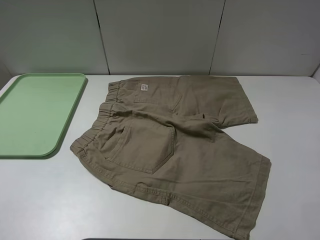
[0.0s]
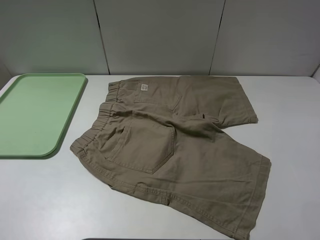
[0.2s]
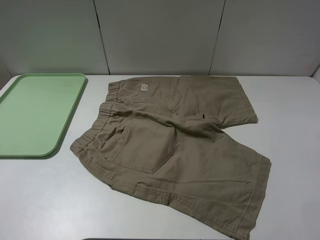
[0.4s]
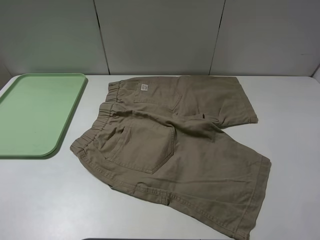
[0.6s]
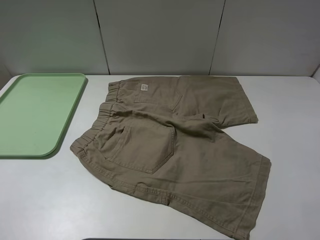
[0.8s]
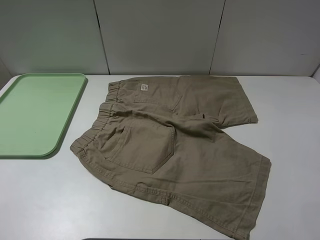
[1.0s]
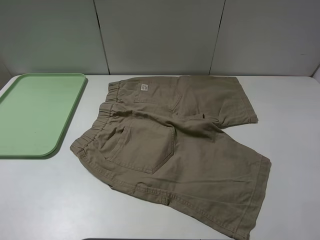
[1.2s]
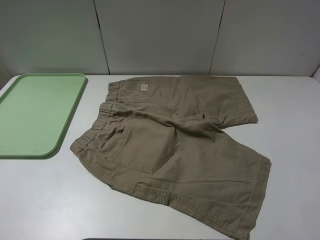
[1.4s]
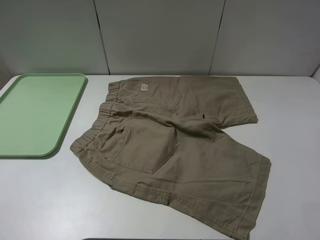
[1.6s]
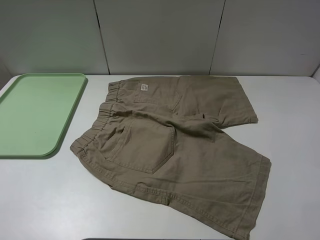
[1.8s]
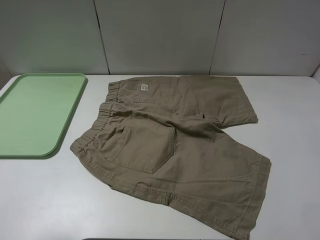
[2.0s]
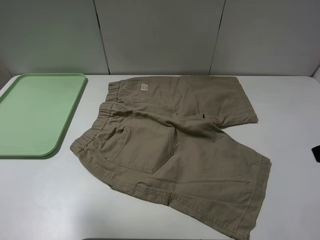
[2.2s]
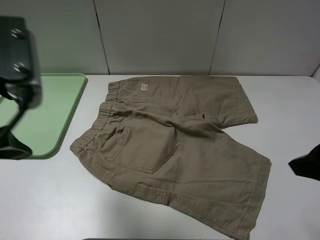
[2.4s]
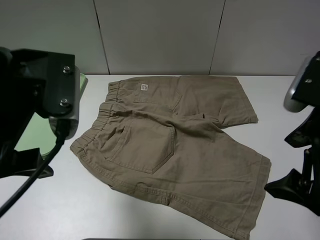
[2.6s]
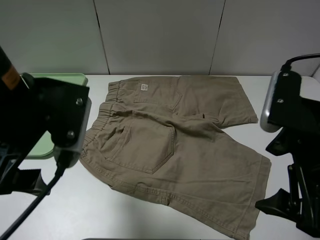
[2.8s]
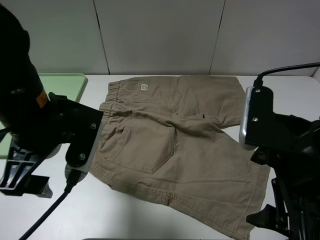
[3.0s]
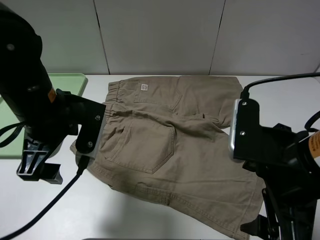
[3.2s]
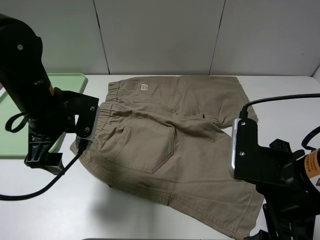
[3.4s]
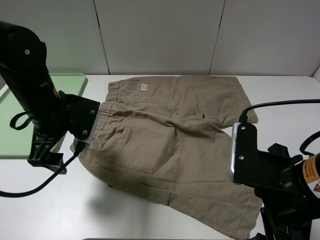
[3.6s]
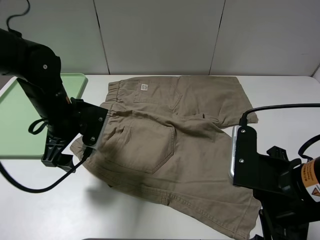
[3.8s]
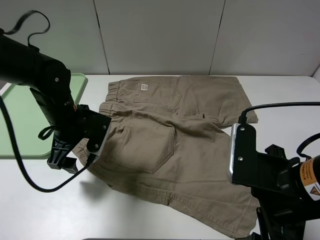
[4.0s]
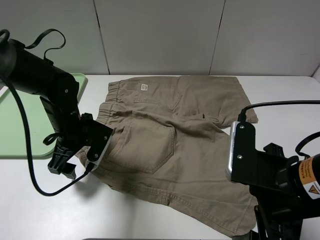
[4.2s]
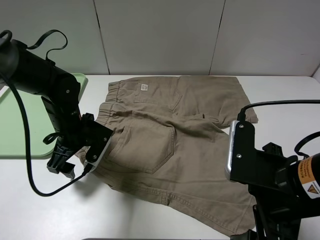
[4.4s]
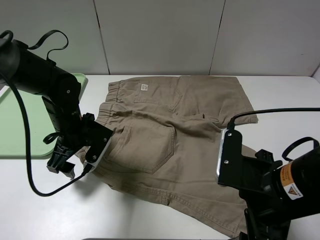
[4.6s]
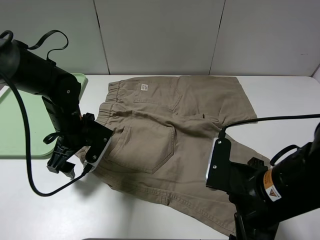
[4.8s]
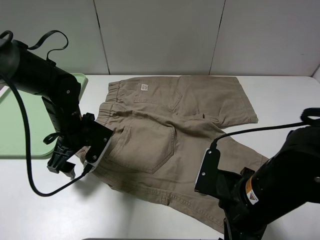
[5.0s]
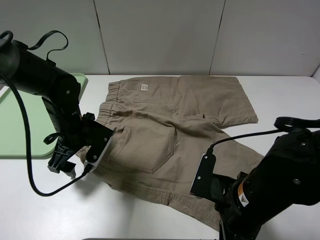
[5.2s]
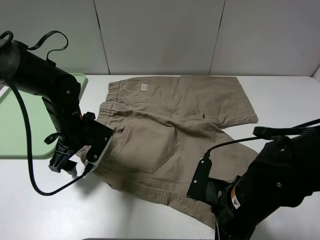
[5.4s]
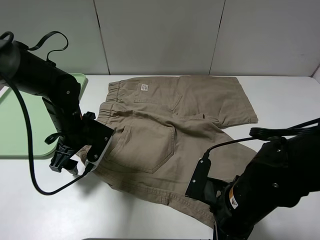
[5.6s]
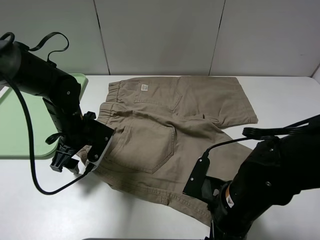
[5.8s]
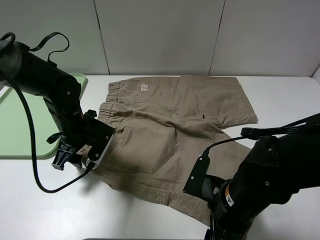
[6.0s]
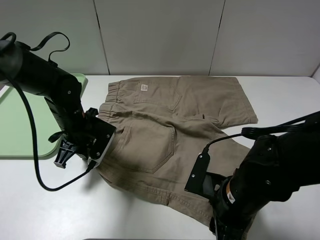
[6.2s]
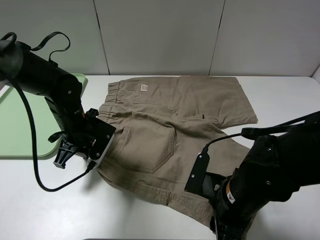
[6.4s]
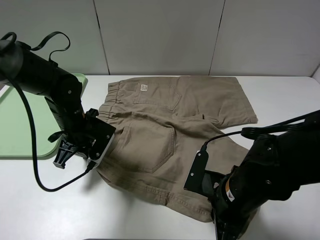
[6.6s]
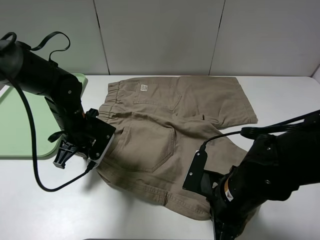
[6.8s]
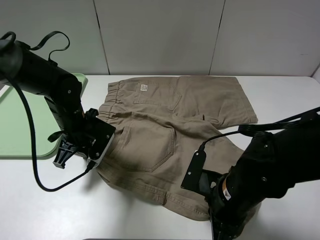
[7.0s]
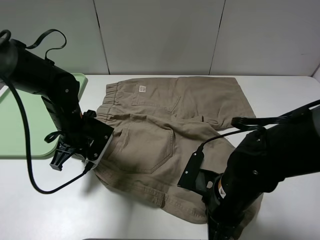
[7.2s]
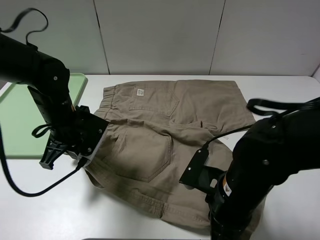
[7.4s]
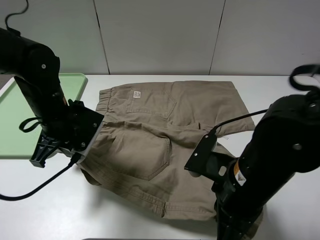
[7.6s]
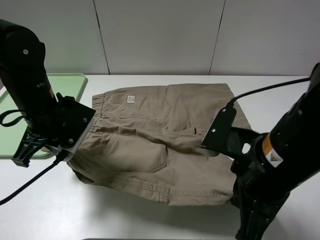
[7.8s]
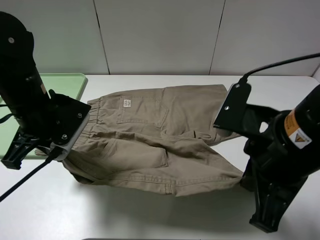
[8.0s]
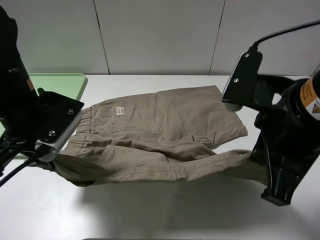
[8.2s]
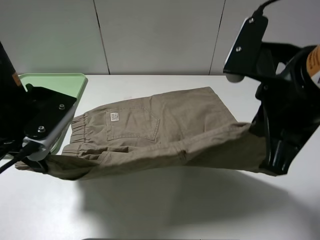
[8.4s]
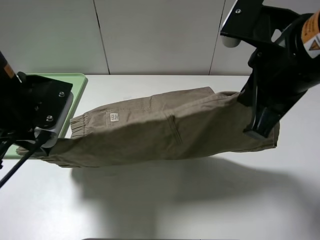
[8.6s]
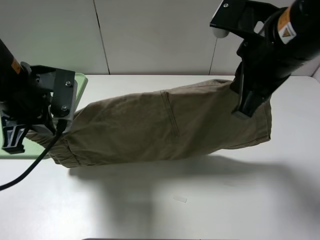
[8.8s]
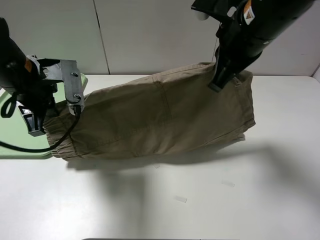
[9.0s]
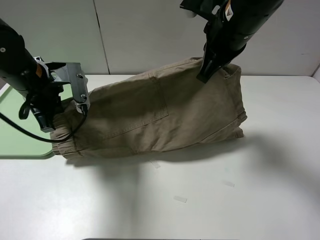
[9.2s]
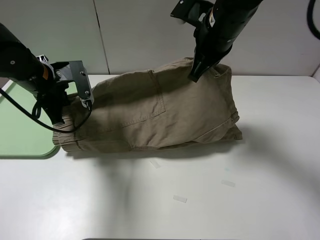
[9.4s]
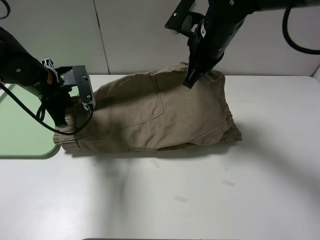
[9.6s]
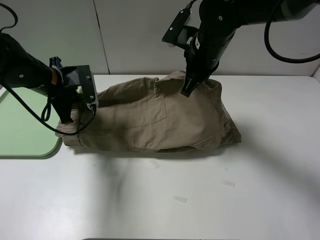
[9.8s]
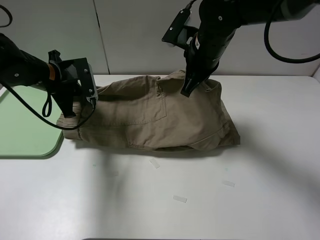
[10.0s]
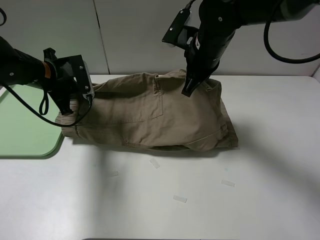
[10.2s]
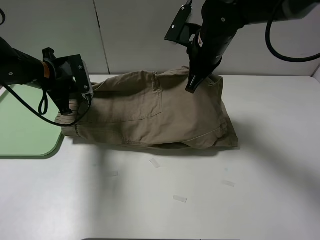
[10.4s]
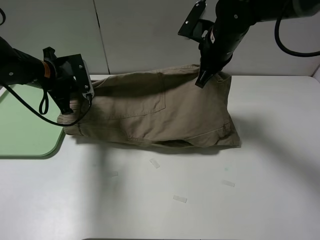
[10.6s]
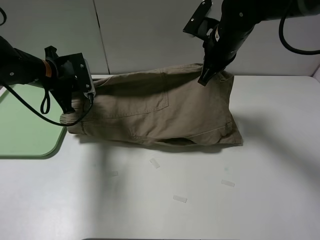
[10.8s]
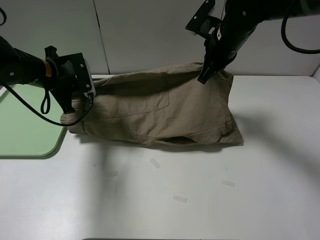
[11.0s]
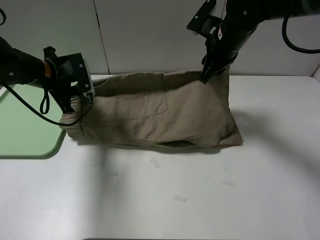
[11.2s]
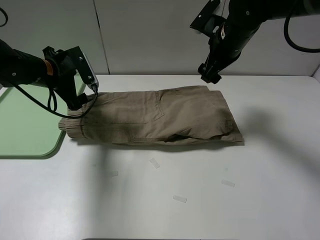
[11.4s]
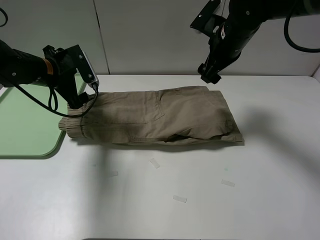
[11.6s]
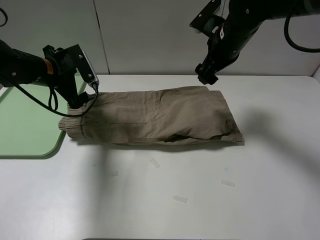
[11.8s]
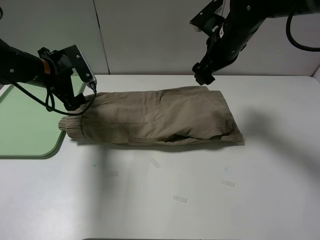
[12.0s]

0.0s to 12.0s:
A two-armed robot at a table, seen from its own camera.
Task of the whole recording: fold the khaki jeans in half with two grippers, then fold them in half again, and use the left claw to place the folded fold khaki jeans on the tray.
Step, 0.0s to 6.6s: Grasp the khaki trousers with the left gripper.
Step, 7.0s to 11.2s: Fold the khaki trousers upwards with the left gripper.
1.6s to 3.0s: The left gripper moves forward and to the right, roughly 25 cm. The right gripper travels to the left and forward by approximately 15 cm.
3.0s to 4.4s: The left gripper moves downward and forward, some 15 cm.
4.4s to 6.0s: The right gripper is displaced downward by about 10 cm, while the left gripper closes its fingers.
6.0s to 7.6s: Both grippers move upward, some 5 cm. The right gripper closes. The left gripper closes.
7.6s to 9.0s: The left gripper goes some 5 cm upward; the right gripper shifts roughly 20 cm forward and upward.
9.0s to 10.4s: Both grippers move forward and downward, roughly 10 cm.
10.4s to 12.0s: The right gripper opens its fingers. Meanwhile the left gripper opens.

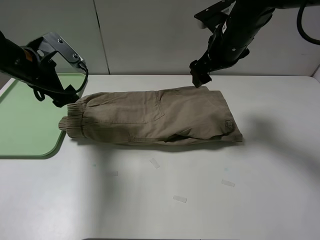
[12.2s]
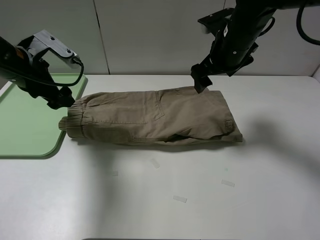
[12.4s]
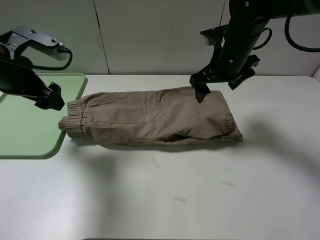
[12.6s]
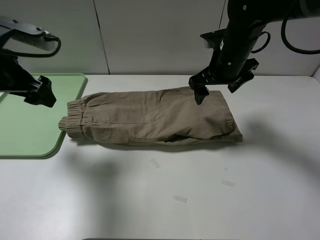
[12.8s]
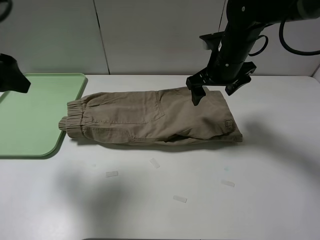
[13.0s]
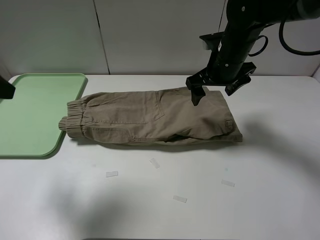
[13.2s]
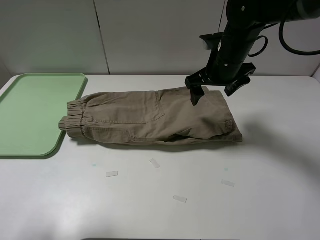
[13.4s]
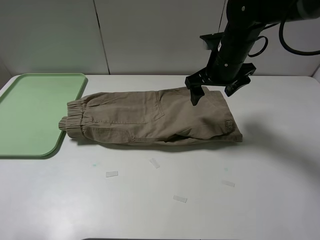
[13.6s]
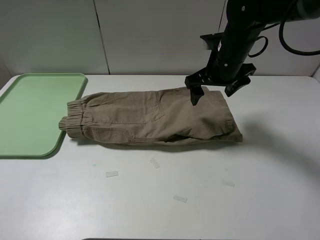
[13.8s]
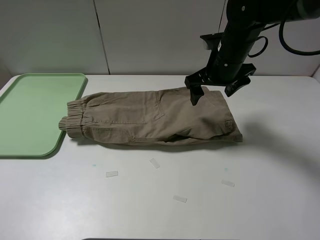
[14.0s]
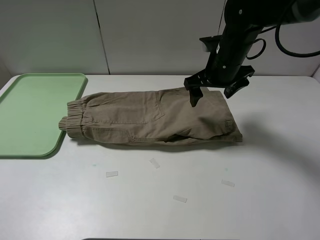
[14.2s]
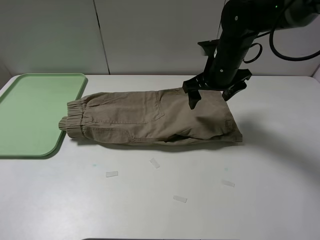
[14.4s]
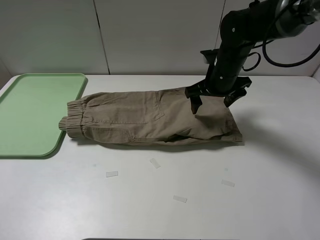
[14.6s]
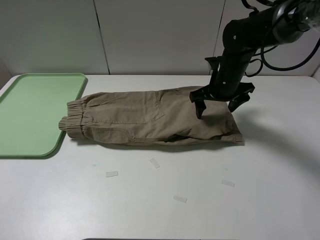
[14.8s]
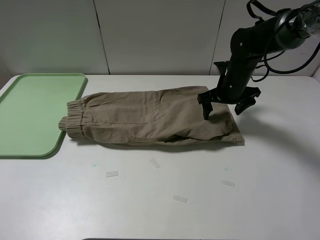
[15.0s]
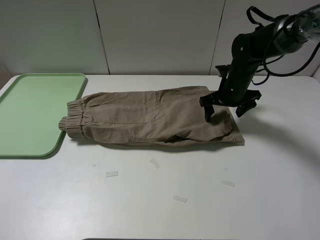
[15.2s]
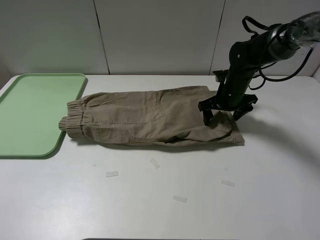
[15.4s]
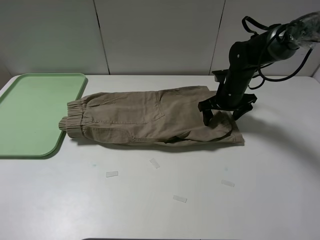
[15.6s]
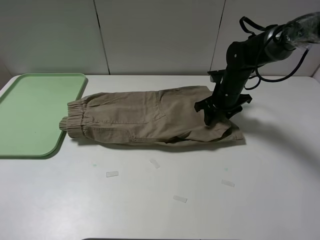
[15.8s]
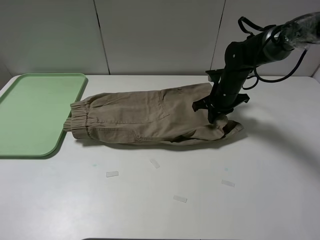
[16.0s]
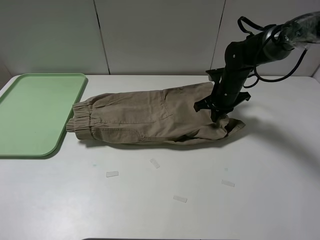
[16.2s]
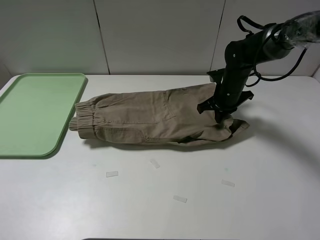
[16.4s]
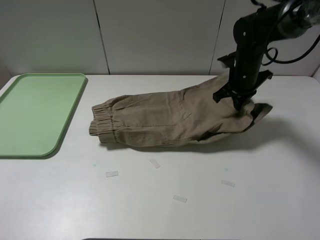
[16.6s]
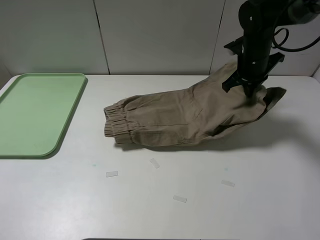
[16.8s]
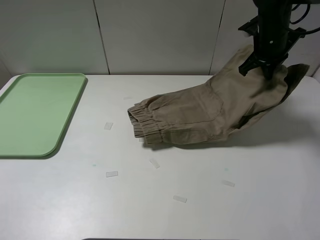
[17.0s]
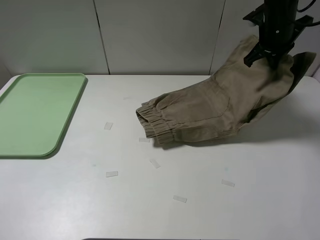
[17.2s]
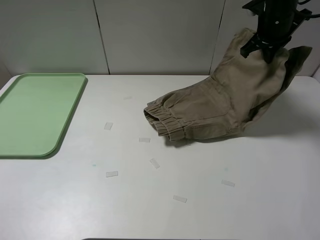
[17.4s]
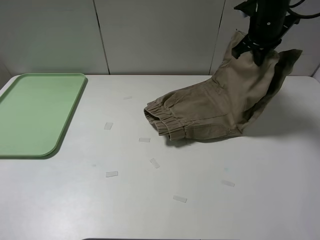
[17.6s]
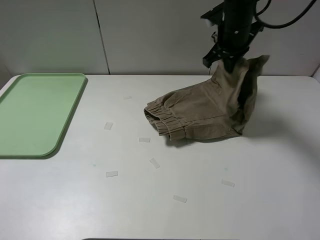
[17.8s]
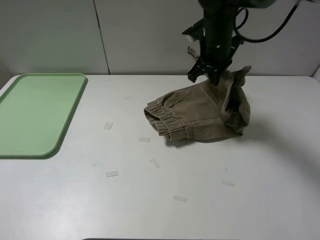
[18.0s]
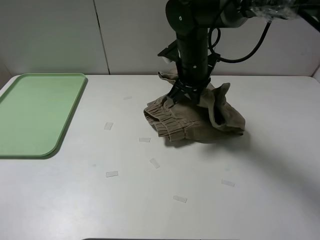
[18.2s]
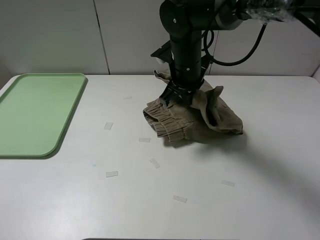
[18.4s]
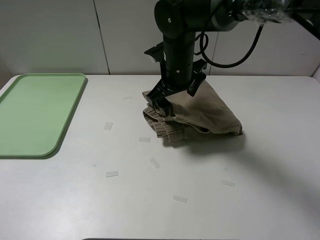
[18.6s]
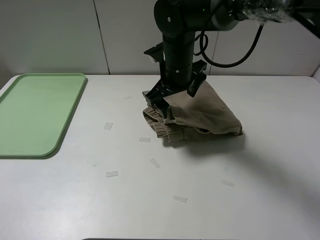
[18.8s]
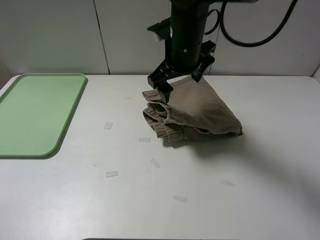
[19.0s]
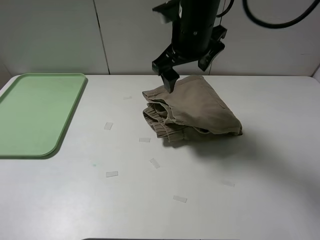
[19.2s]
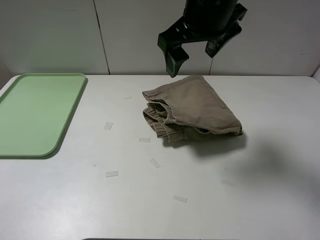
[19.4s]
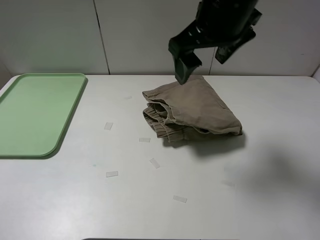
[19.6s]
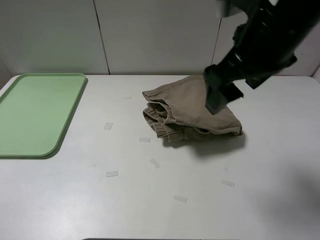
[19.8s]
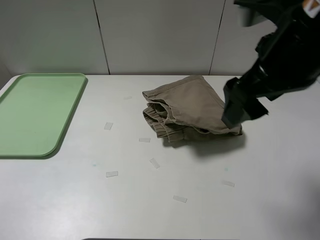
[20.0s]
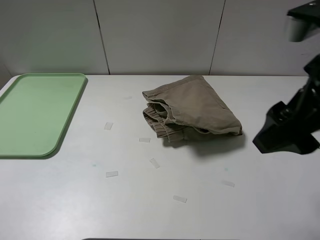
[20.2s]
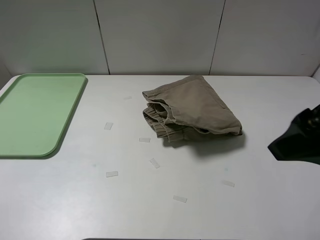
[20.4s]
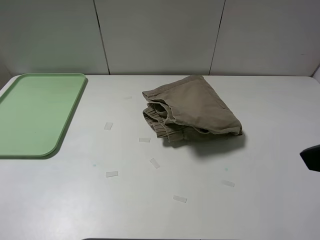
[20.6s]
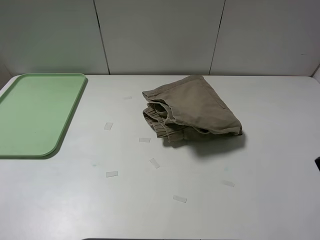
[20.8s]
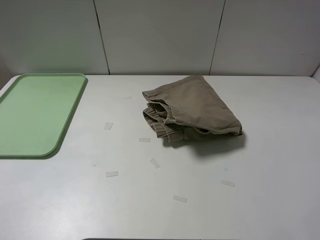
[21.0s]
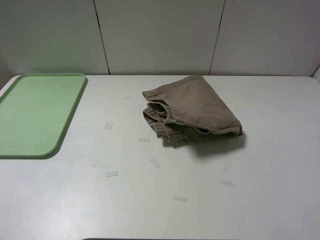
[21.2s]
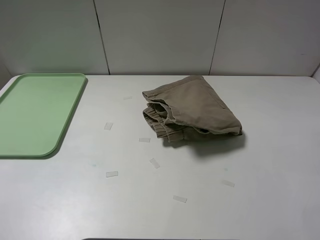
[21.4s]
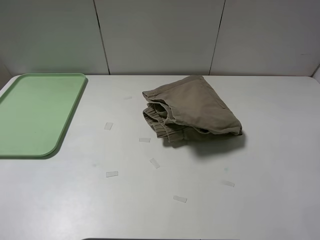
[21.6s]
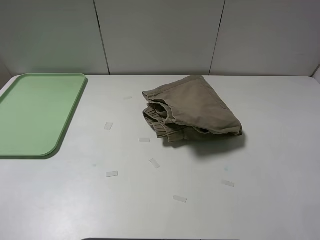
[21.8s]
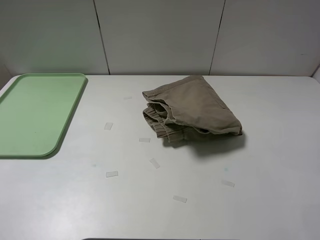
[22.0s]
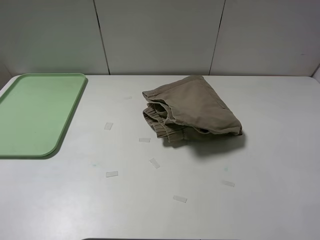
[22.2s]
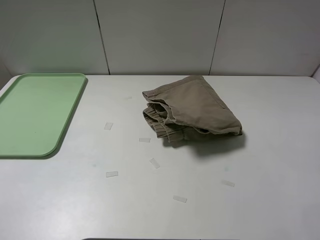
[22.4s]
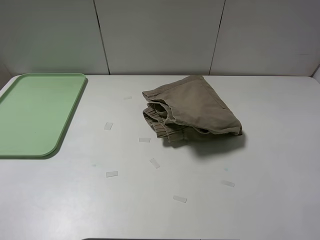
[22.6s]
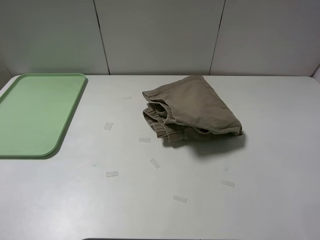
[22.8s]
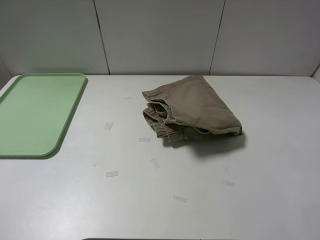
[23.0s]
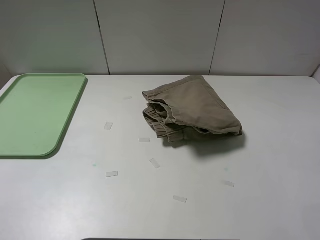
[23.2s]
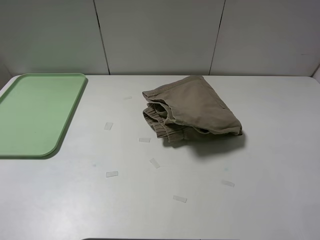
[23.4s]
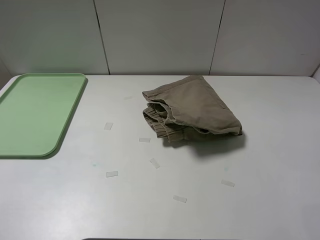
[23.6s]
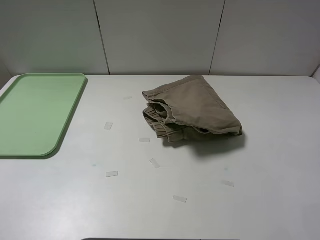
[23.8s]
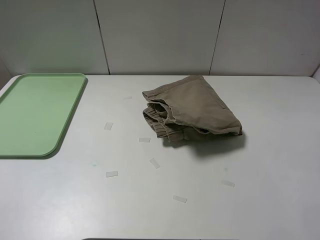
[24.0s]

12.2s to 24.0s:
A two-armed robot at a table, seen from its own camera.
Task of the whole recording: fold the khaki jeans in half with two grippers, then fold them in half again, and use the left claw to place the folded fold khaki jeans on the tray.
Step, 12.2s to 16.0s: Grasp the khaki trousers with the right gripper.
Step, 16.2s to 18.8s: Fold the khaki trousers from right to left with the right gripper.
12.2s to 13.6s: The left gripper shifts some 30 cm backward.
13.6s to 15.2s: The left gripper travels backward by roughly 5 cm. The right gripper heads downward and to the right, covering about 10 cm.
15.2s to 16.6s: The right gripper ends up roughly 5 cm from where it was, and closes.
16.6s to 18.2s: The right gripper moves to the left, approximately 15 cm.
18.2s to 19.6s: The right gripper heads upward and backward, covering about 15 cm, and opens.
19.6s to 21.0s: The right gripper travels backward and to the right by approximately 30 cm.
